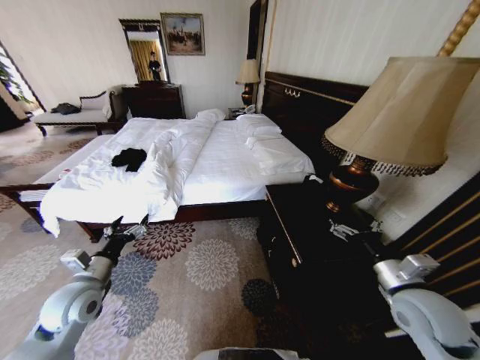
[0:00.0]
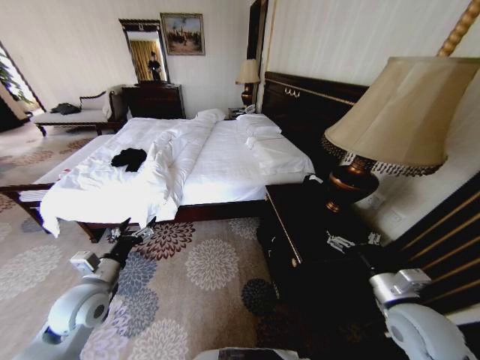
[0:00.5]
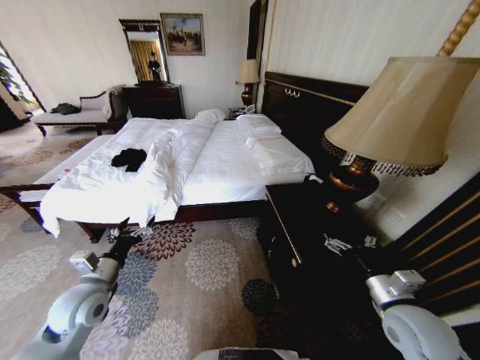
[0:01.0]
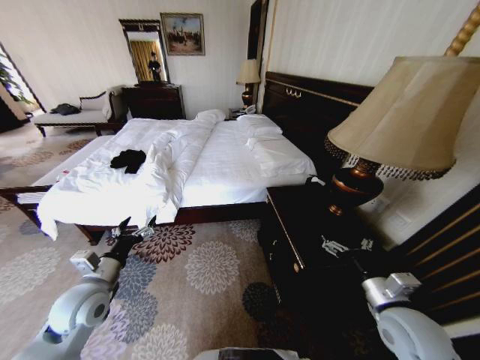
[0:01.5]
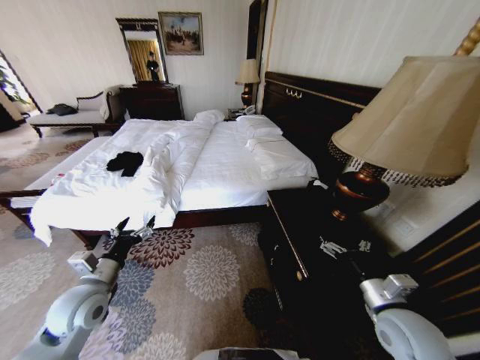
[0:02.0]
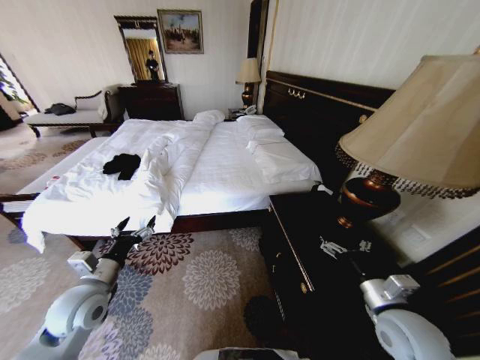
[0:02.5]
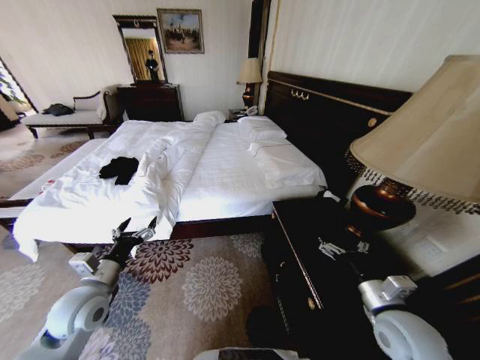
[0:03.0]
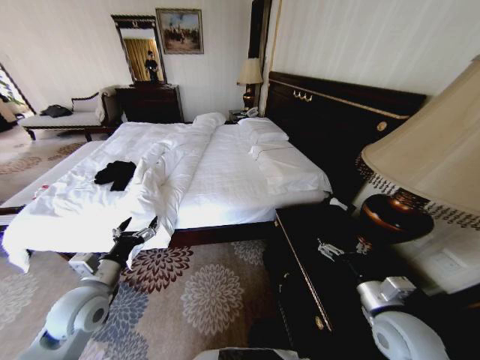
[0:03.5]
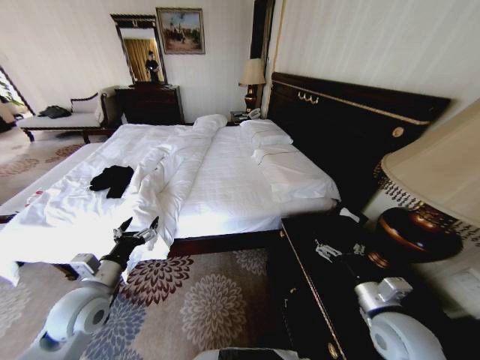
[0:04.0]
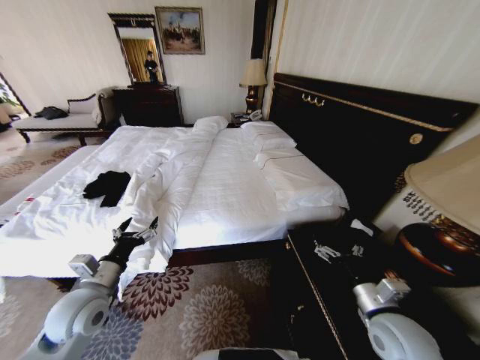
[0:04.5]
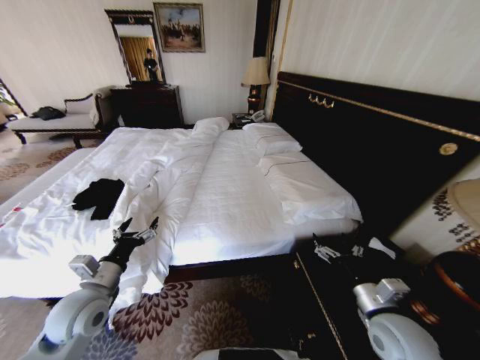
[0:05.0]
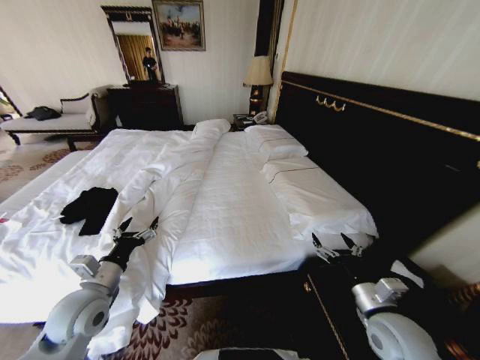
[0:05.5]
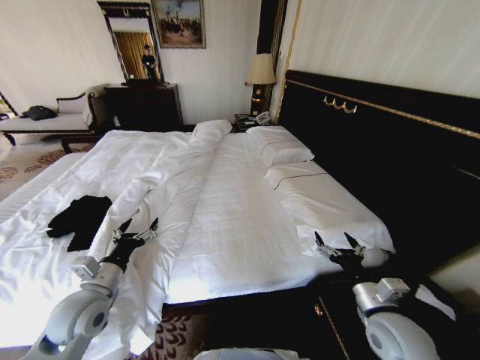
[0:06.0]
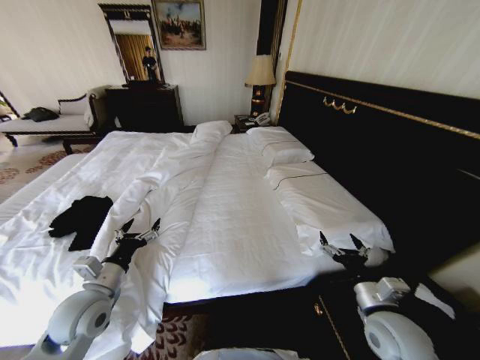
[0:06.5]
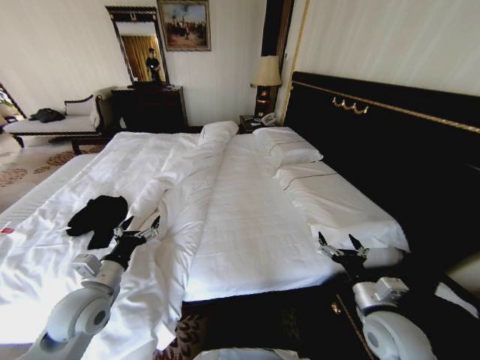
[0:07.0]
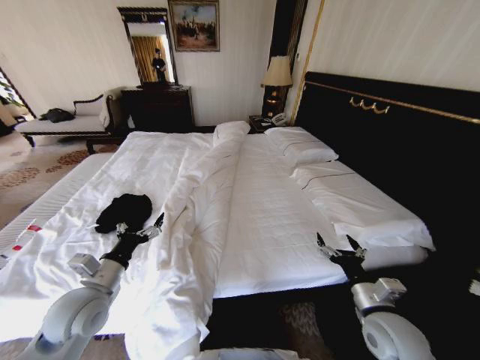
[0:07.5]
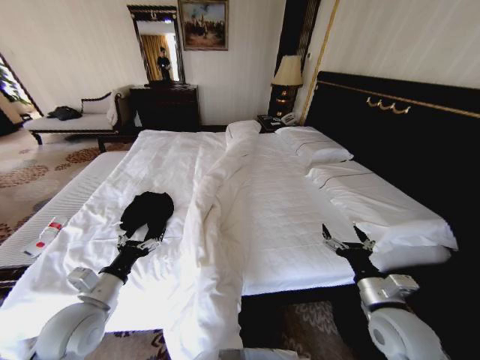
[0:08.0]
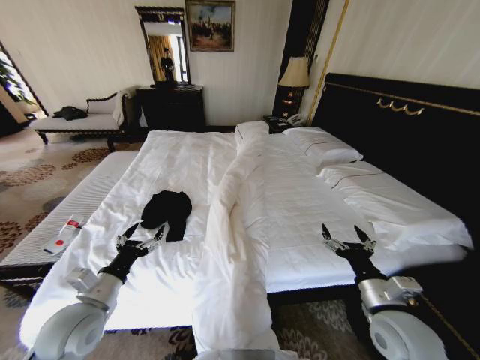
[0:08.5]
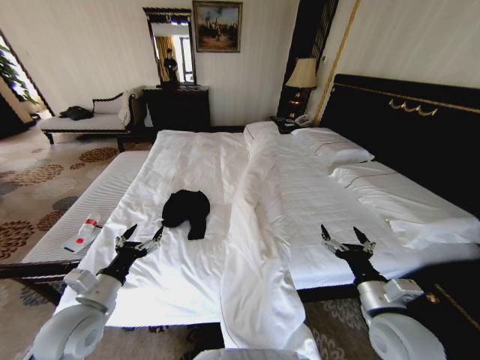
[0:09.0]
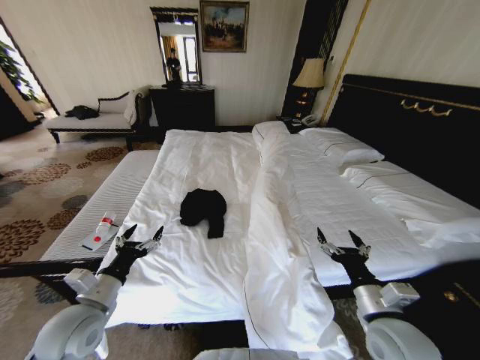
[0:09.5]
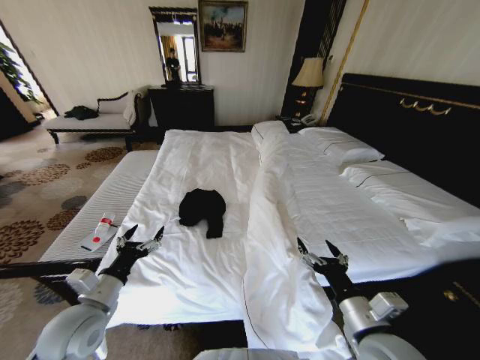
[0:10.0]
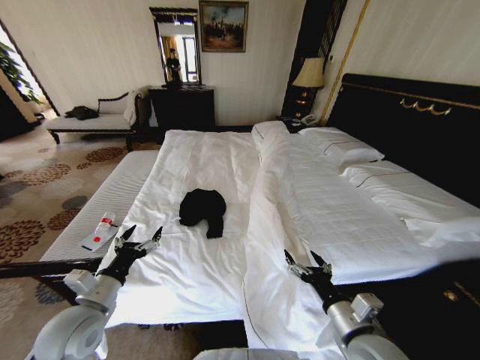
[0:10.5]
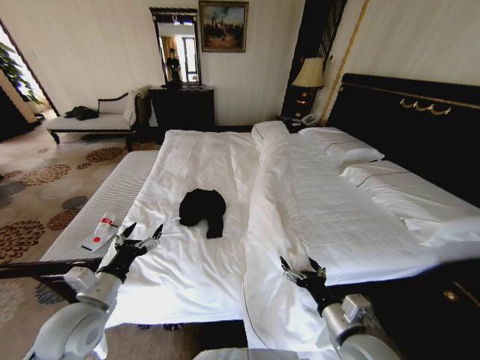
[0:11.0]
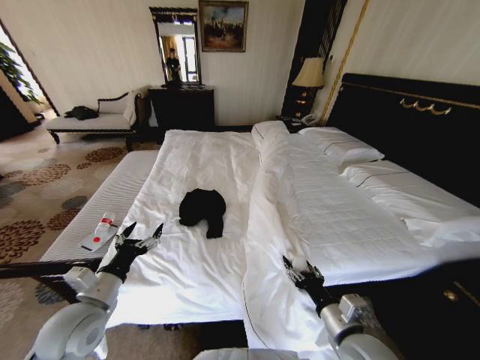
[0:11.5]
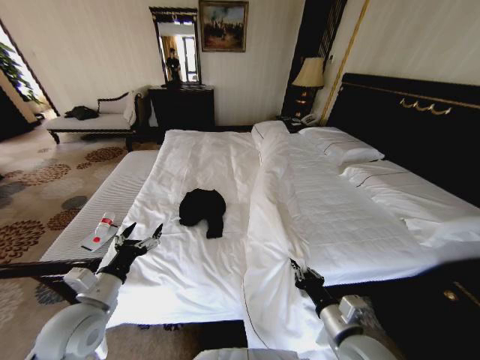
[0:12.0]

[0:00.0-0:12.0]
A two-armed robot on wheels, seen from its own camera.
Task of the whole recording: Fold the clothes on the bed.
0:08.0 to 0:10.0: The right gripper travels to the left by some 5 cm.
0:10.0 to 0:12.0: The right gripper travels downward by approximately 5 cm, and closes its fingers.

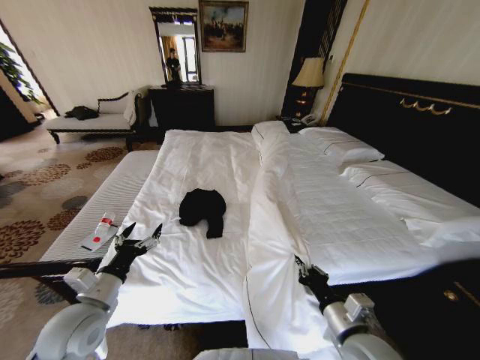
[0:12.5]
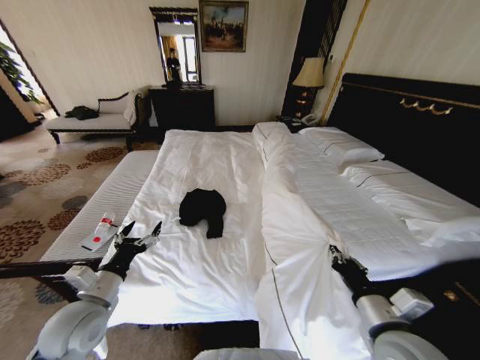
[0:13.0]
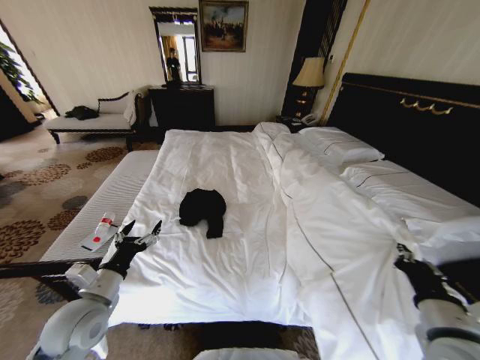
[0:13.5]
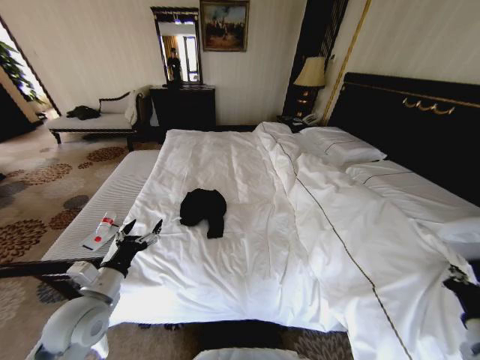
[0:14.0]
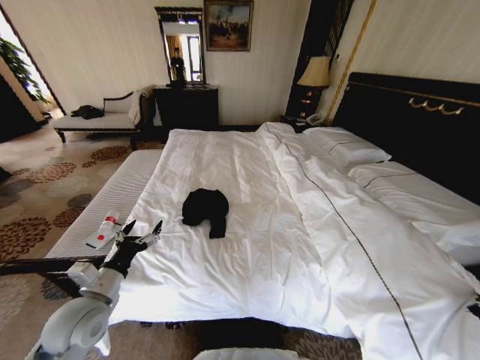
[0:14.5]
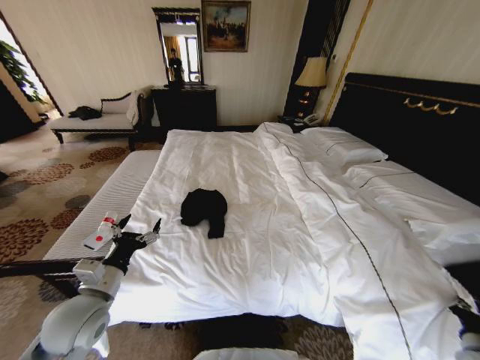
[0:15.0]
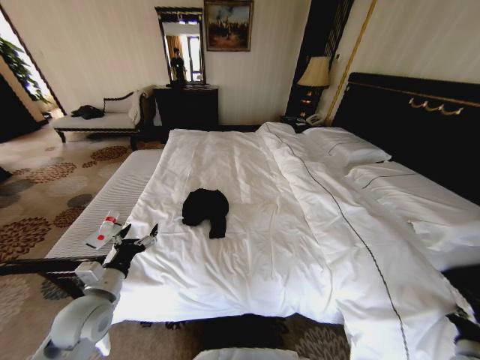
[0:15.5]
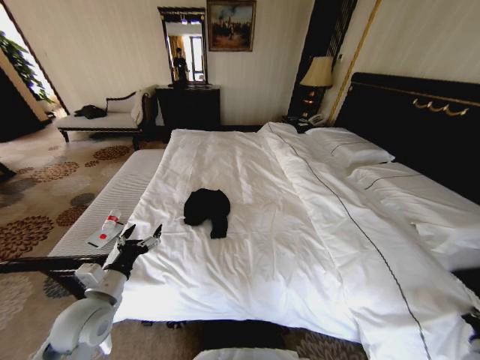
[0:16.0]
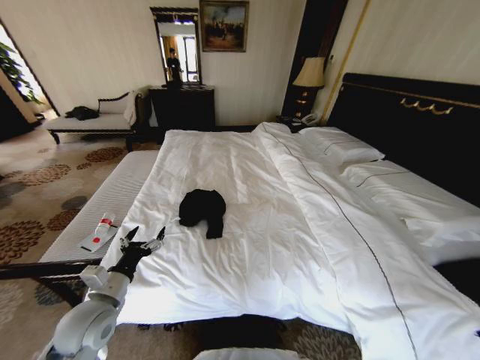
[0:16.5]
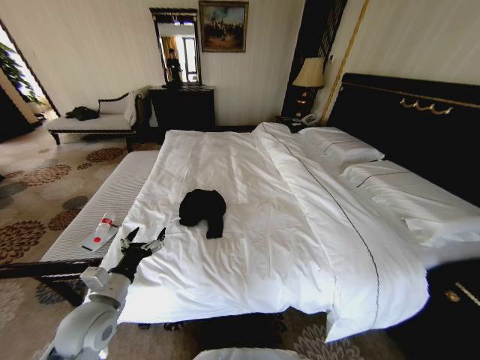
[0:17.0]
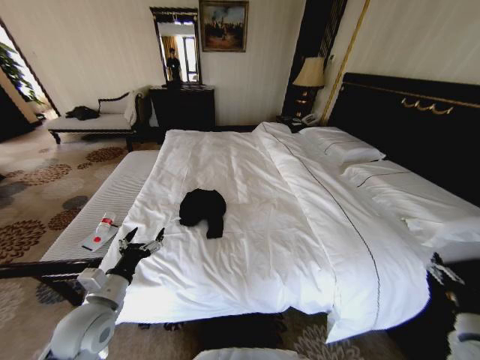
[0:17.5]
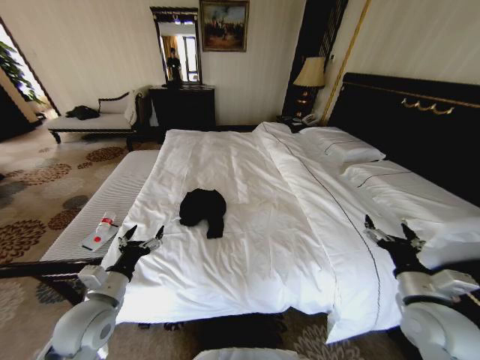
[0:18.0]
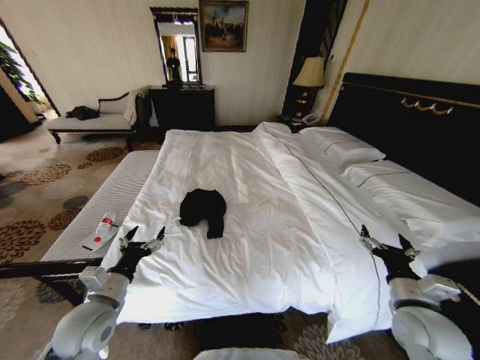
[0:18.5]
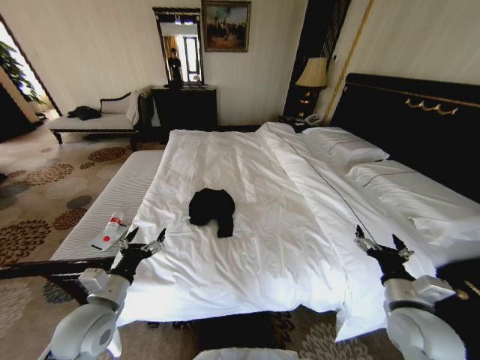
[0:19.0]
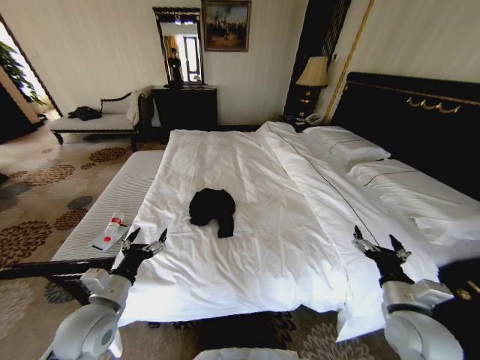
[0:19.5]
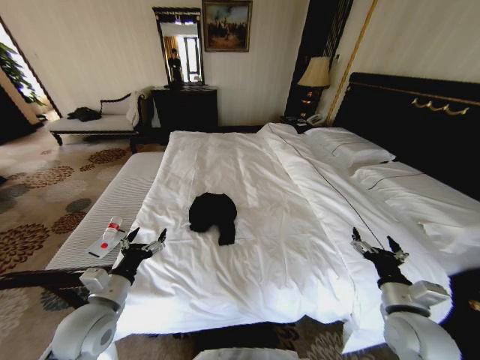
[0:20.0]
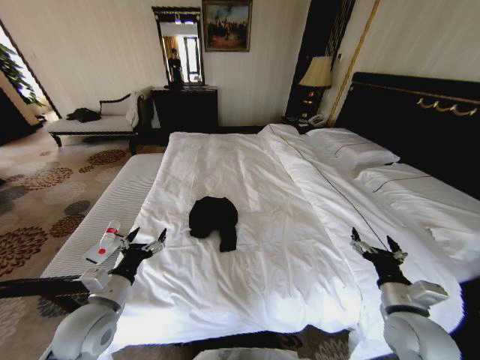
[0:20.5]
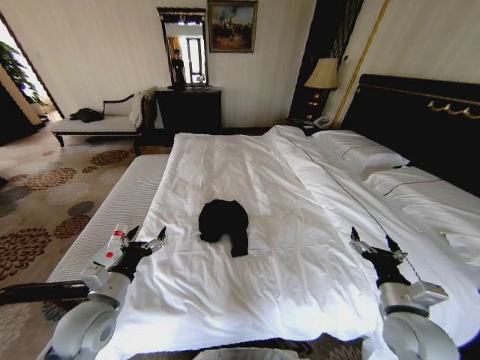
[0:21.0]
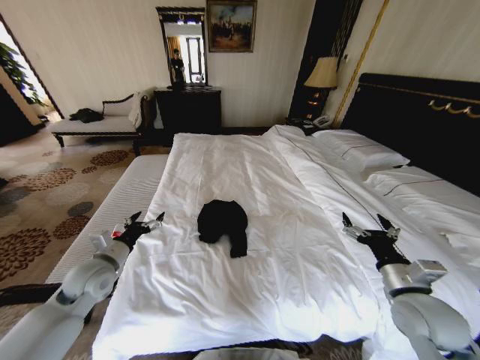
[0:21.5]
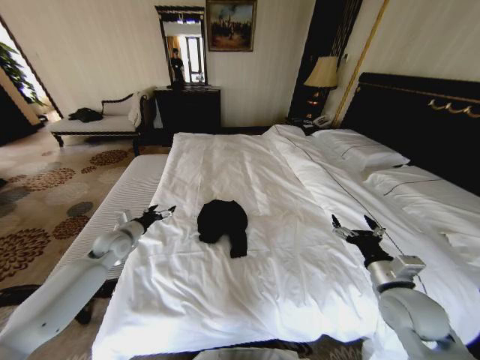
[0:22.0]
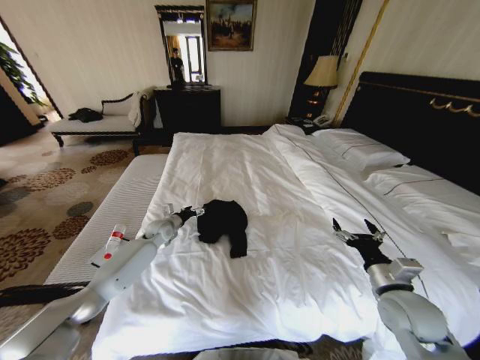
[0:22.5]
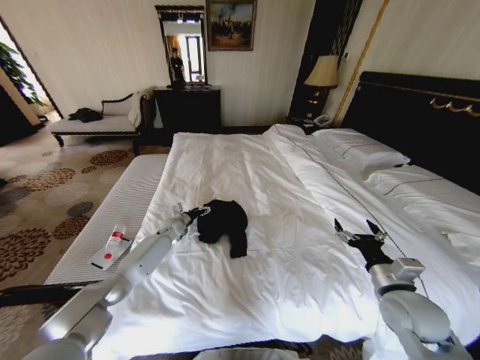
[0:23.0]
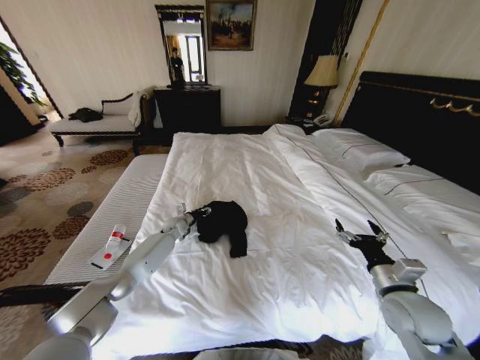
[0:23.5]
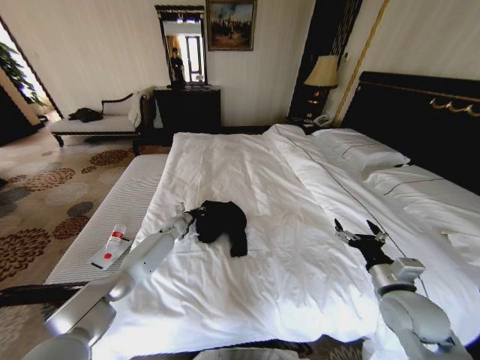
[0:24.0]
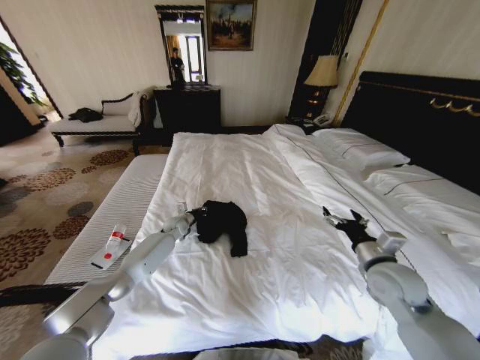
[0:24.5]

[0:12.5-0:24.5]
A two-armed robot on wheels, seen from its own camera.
Task of the whole recording: Fold the clothes on the bed.
0:12.5 to 0:14.5: The right gripper shifts roughly 30 cm to the right.
0:14.5 to 0:16.5: The right gripper travels downward and to the right by roughly 15 cm.
0:16.5 to 0:18.5: The right gripper is displaced to the left, upward and forward by about 30 cm, and opens its fingers.
0:20.5 to 0:22.5: The left gripper moves forward, some 30 cm.
0:22.5 to 0:24.5: The right gripper changes place by some 5 cm. The left gripper moves roughly 5 cm, and closes.

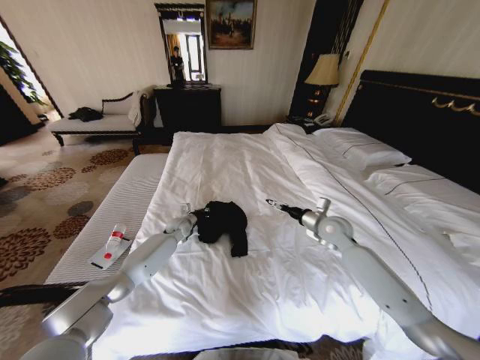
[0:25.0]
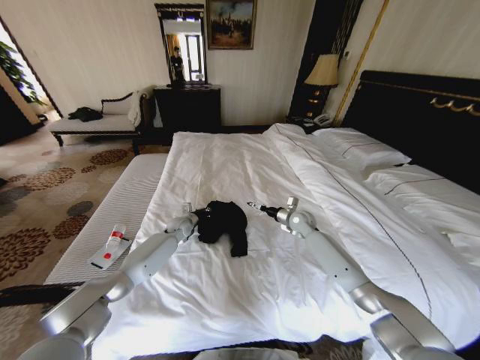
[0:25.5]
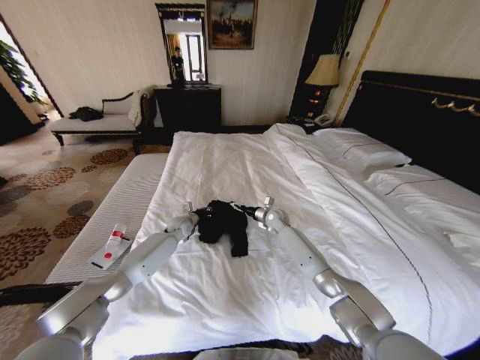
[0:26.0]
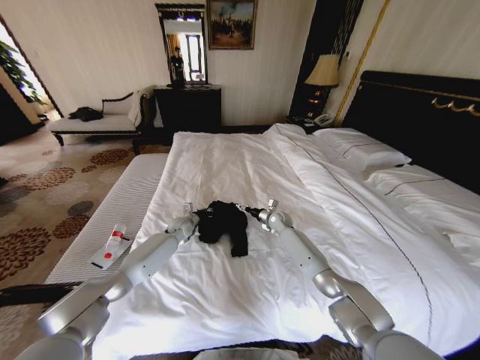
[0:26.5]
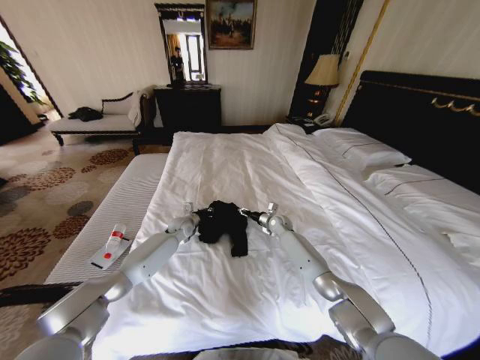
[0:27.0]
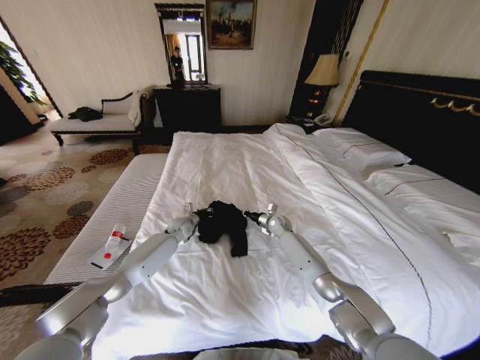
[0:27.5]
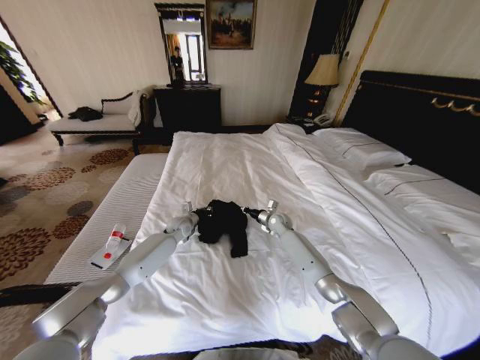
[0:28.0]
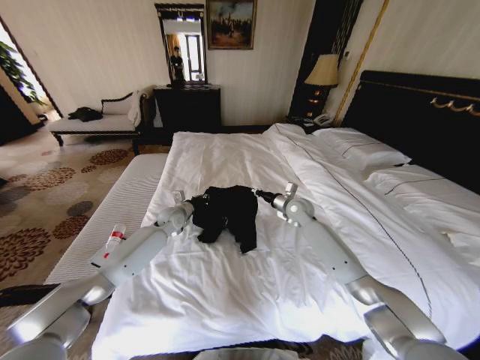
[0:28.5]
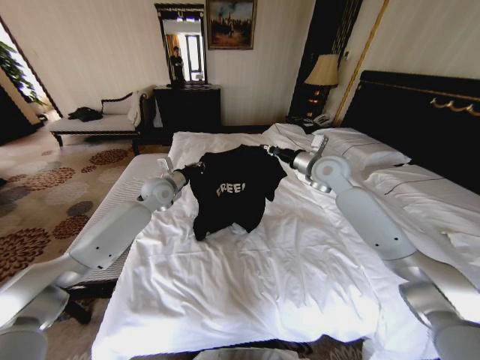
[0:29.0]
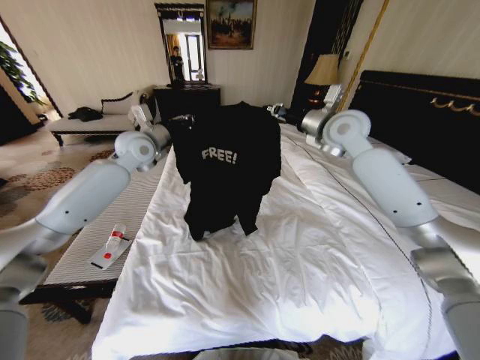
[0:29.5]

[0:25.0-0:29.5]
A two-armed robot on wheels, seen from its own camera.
Task of the whole recording: Fold the clothes on the bed.
0:25.0 to 0:27.0: The right gripper travels forward, downward and to the left by roughly 25 cm, and closes its fingers.
0:27.0 to 0:29.5: Both grippers move upward, about 40 cm. The right gripper closes its fingers.
